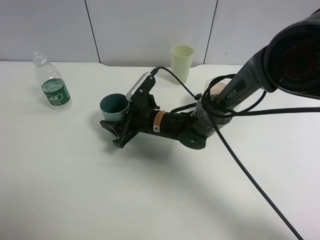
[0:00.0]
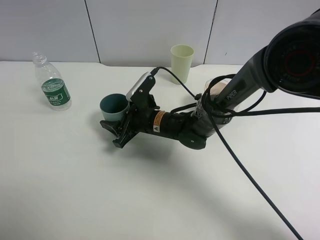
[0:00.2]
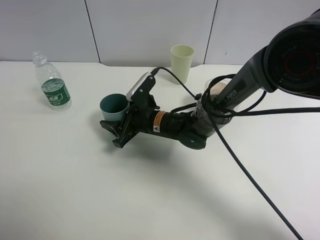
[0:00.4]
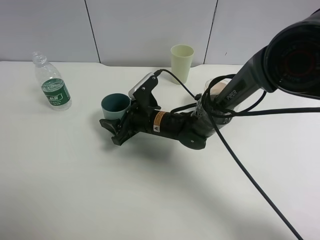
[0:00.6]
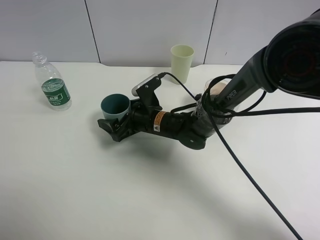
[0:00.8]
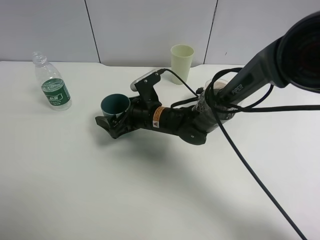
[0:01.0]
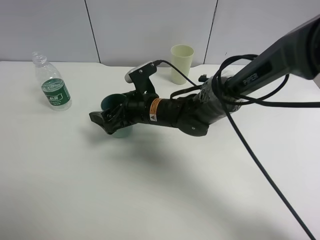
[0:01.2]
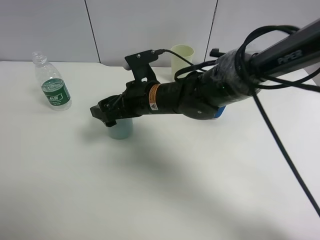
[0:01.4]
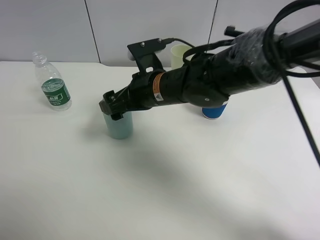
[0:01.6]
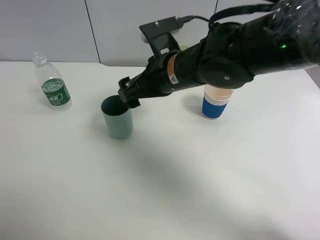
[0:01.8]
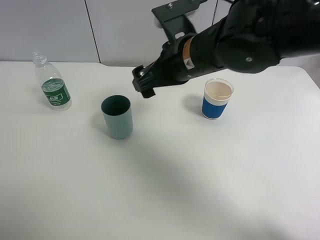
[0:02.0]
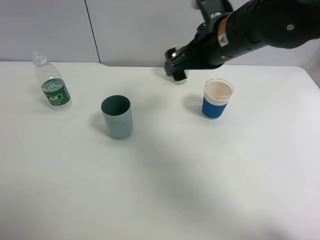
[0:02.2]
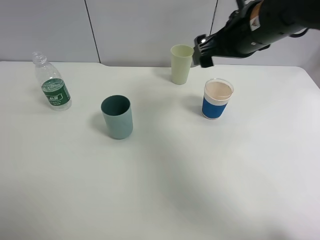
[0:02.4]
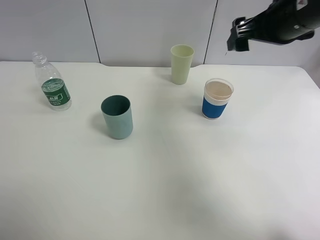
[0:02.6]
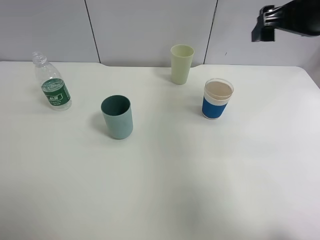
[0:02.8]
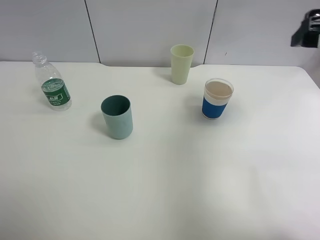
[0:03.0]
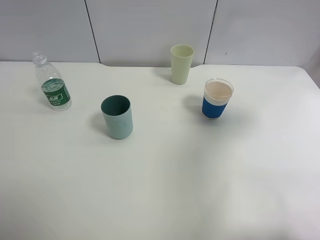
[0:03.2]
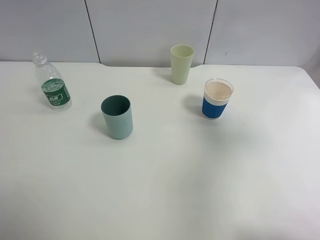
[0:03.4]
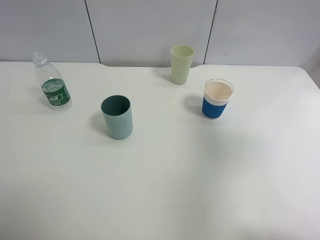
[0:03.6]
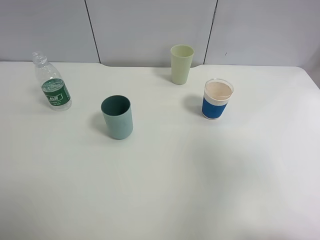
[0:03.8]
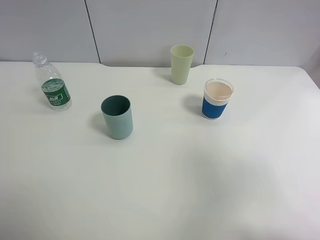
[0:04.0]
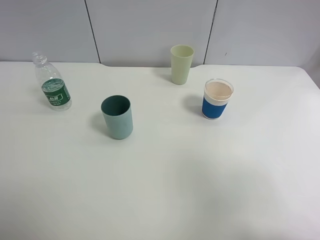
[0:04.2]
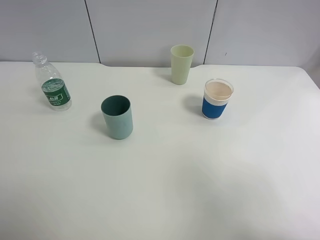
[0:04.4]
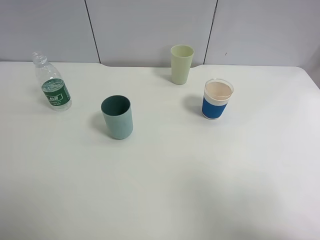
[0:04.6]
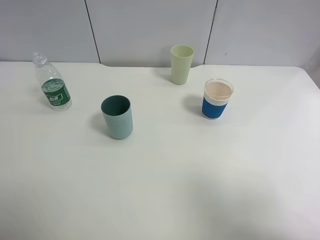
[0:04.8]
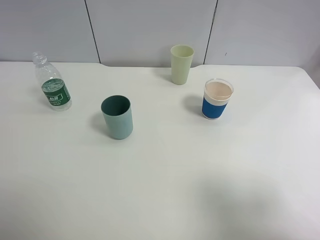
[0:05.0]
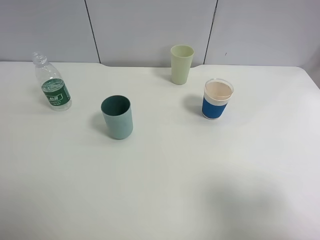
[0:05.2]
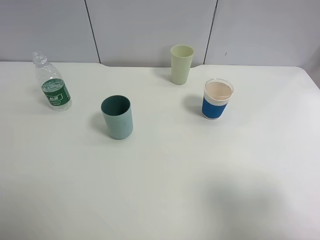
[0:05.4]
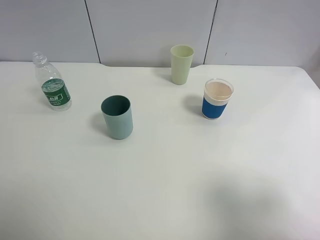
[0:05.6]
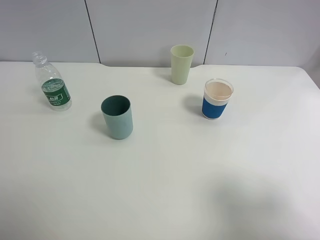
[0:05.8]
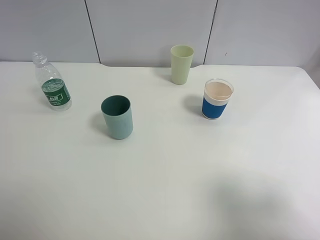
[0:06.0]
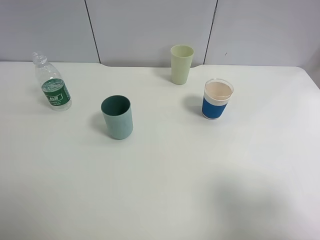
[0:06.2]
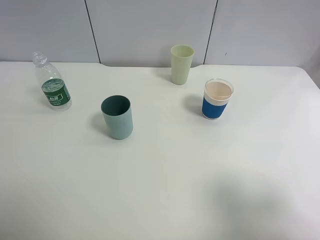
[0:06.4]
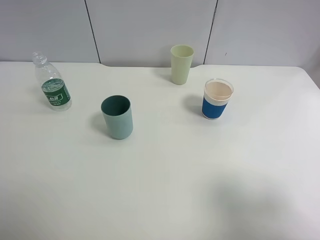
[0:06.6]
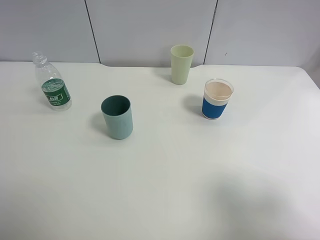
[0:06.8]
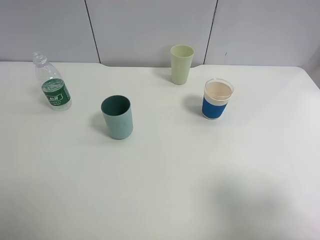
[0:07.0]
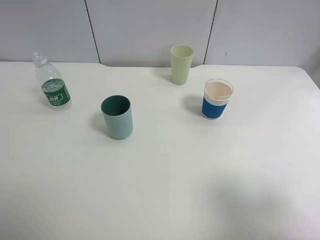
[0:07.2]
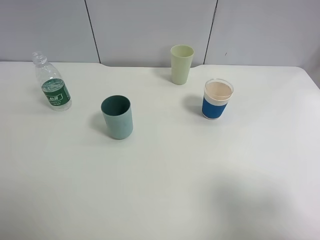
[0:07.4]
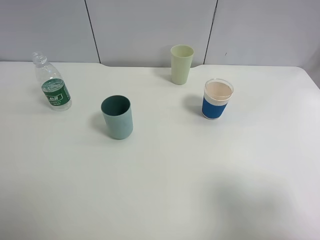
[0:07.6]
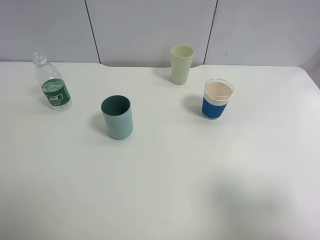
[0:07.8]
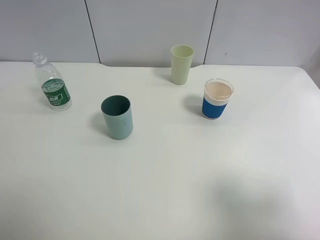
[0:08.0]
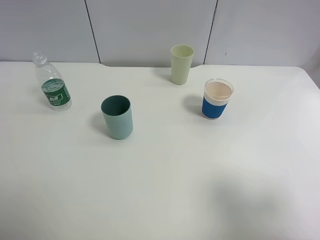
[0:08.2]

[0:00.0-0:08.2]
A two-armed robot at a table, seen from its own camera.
Task of the whole recording: use a clamp to hold the bottle of the drink, pour the beverage into a random cup, then clamp the cup containing the drink and pour the drink into another random cup.
0:00.0 to 0:01.6: The right gripper travels upward by approximately 10 cm, and opens.
0:01.6 to 0:03.2: The right gripper is displaced to the right and upward by roughly 35 cm.
0:03.2 to 0:05.0: The right gripper goes about 20 cm backward.
0:06.6 to 0:08.2: Both grippers stay about where they are.

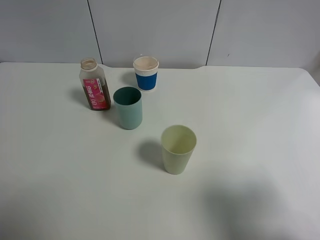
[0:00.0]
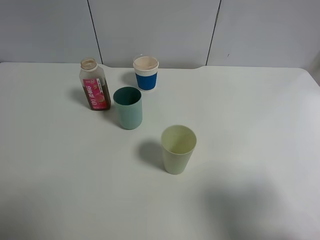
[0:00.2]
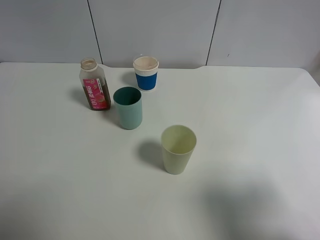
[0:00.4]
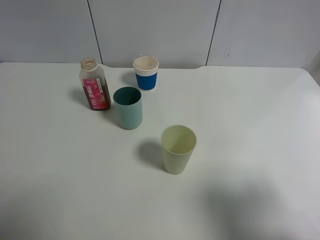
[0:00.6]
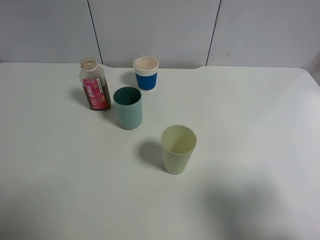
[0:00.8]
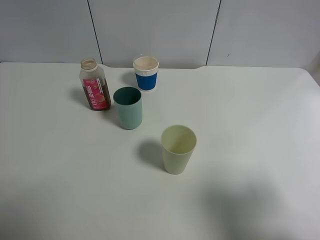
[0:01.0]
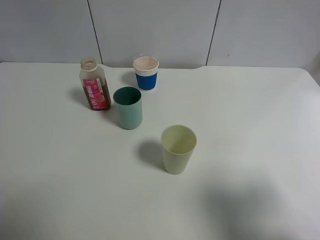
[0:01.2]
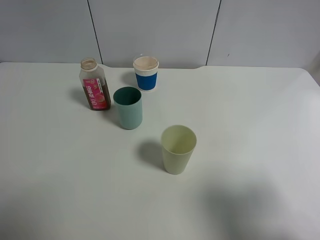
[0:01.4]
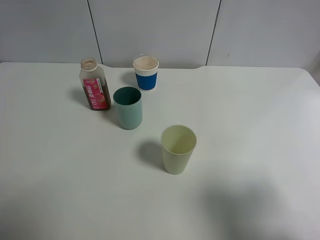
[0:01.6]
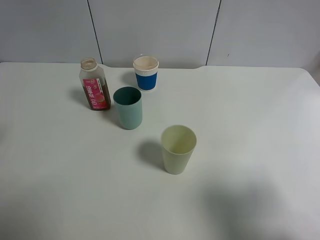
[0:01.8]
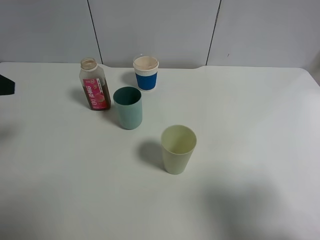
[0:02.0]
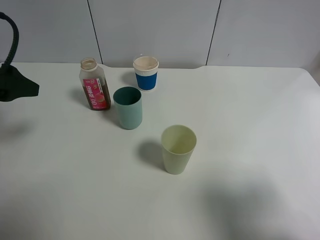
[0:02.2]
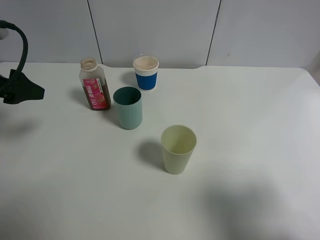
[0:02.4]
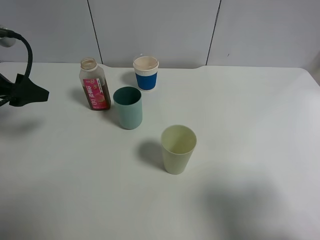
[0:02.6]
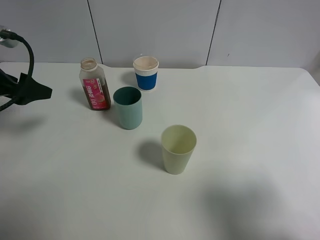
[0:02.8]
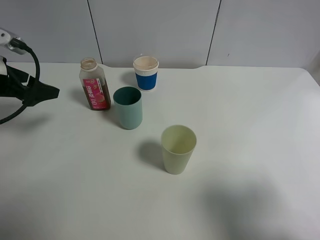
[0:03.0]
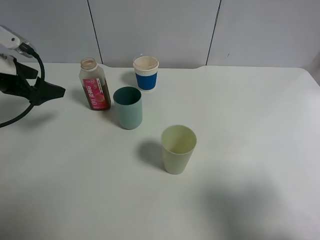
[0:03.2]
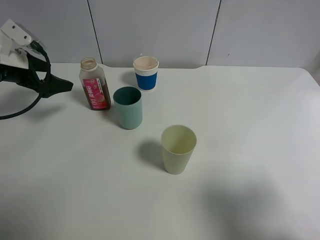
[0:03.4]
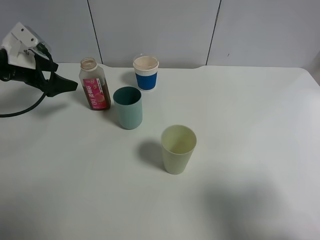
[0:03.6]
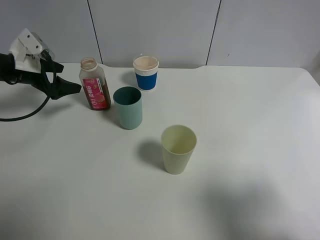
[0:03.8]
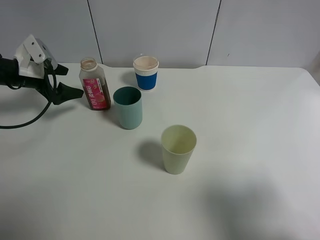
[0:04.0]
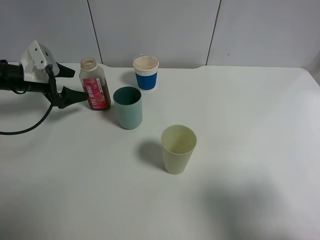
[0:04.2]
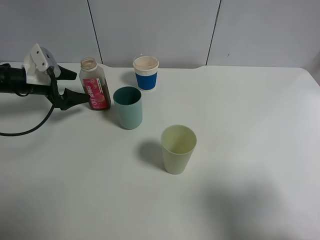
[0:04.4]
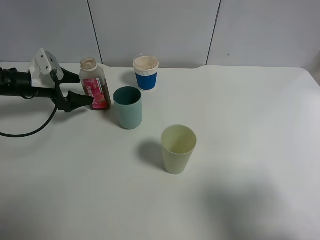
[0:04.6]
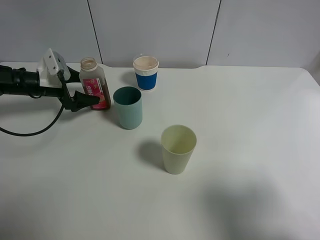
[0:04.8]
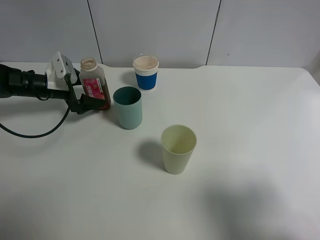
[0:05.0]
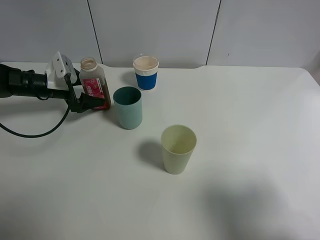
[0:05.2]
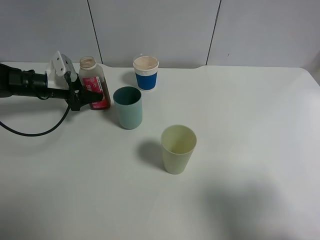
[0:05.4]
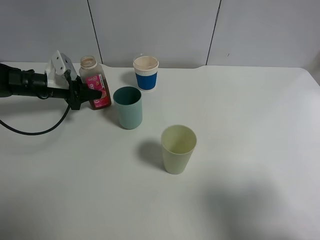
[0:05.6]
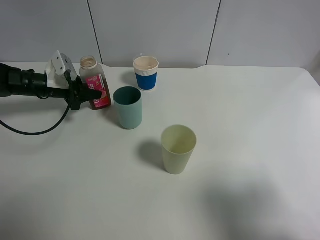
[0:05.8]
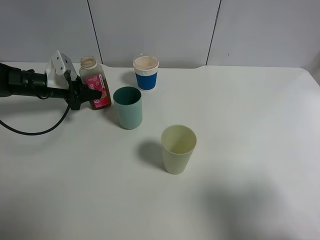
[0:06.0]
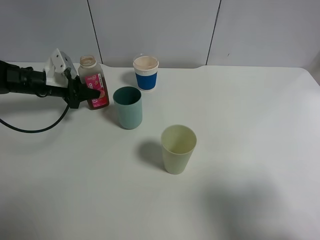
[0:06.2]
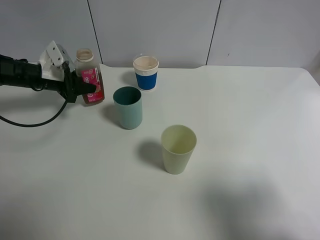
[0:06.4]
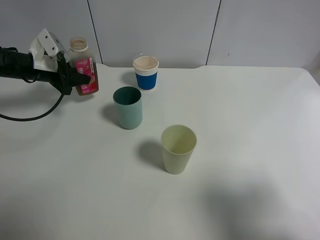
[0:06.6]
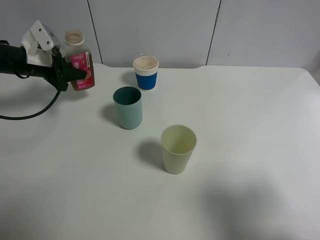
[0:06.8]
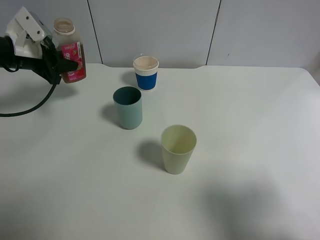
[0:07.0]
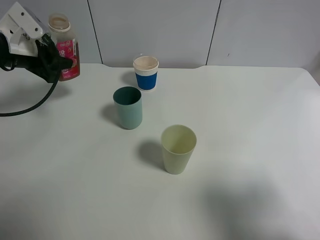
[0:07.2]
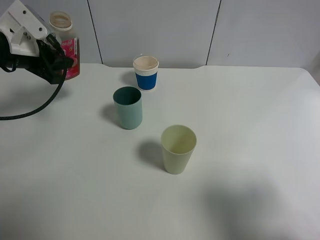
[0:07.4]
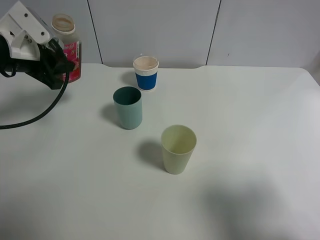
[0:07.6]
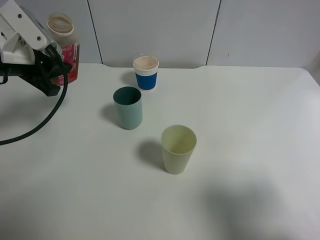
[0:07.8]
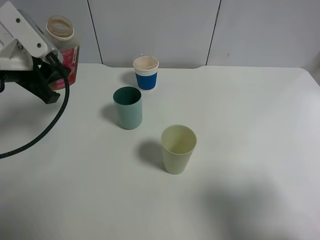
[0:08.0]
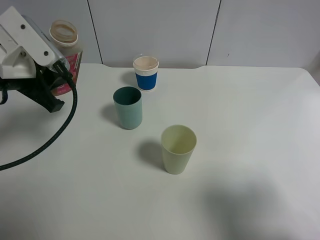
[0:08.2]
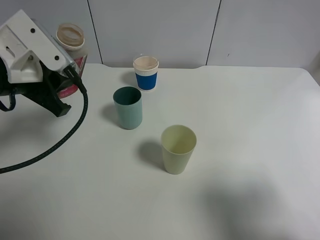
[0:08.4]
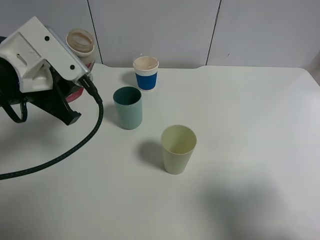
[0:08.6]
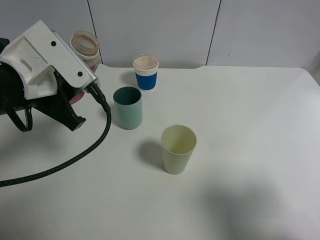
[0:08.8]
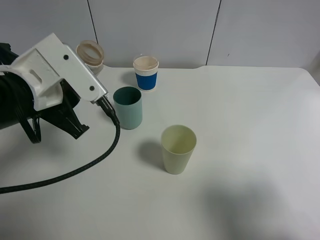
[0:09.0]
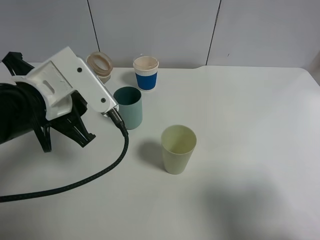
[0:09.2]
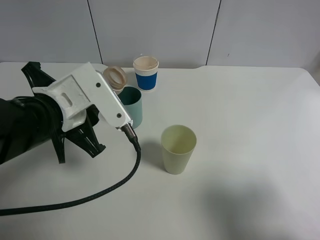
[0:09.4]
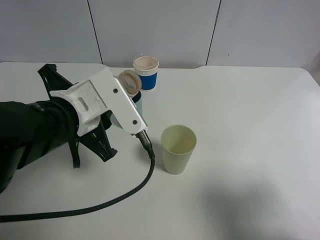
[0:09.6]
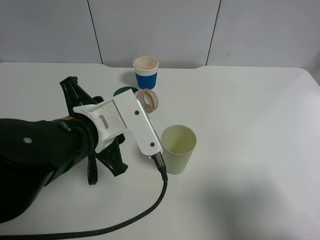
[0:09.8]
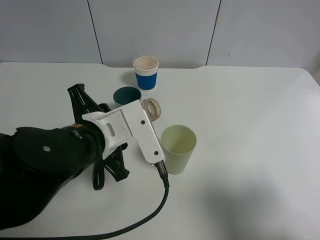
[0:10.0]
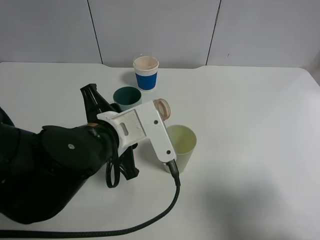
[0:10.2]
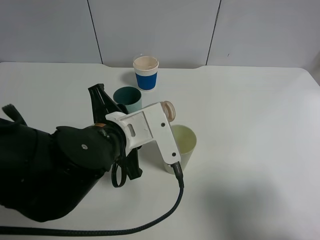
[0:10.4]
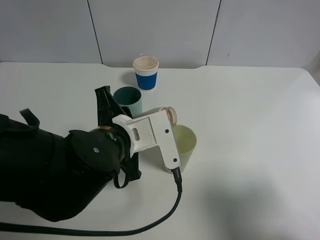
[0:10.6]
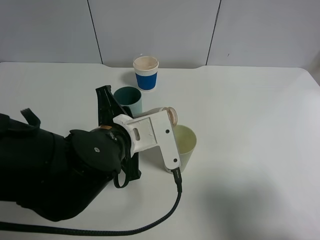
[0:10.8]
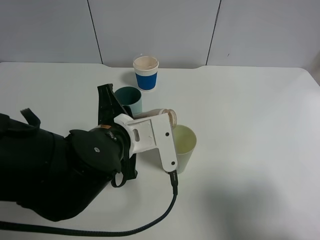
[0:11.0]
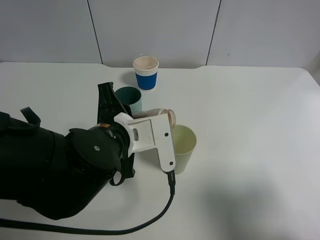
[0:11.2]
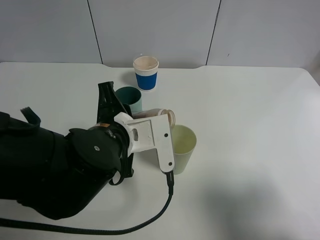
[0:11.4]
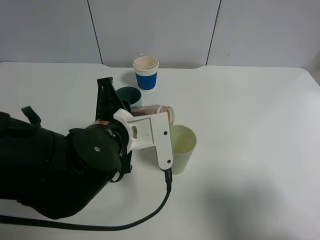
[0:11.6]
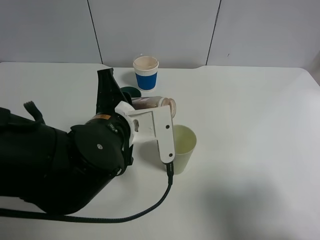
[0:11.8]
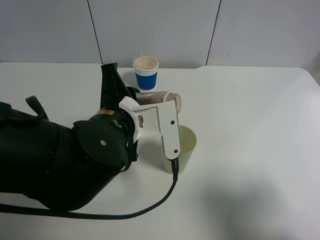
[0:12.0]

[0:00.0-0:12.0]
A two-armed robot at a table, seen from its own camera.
Task of the whole recording: use a clamp to hold the bottle of the drink, pour the beverage into a random cup, then clamp the cup containing the drink and pour the drink into another random cup.
Step, 0:00.0 to 0:06.6: Pick up the drink bottle with left gripper.
0:01.6 to 0:03.0: The left gripper goes roughly 20 cm forward and downward.
0:03.0 to 0:04.4: The left gripper goes some 15 cm downward and forward.
0:04.4 to 0:06.0: The left gripper closes its fingers.
0:06.0 to 0:07.6: The left gripper moves upward and backward, some 15 cm.
0:07.6 to 0:09.0: The left gripper shifts some 15 cm backward and to the right.
0:09.0 to 0:10.4: The left gripper shifts approximately 10 cm to the right and downward.
0:10.4 to 0:12.0: The grippers stay close to where they were, moving slightly.

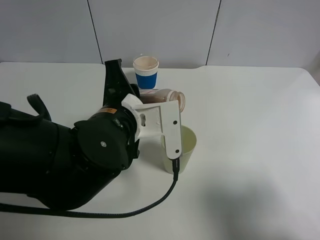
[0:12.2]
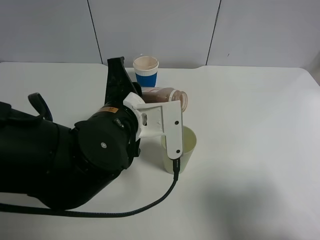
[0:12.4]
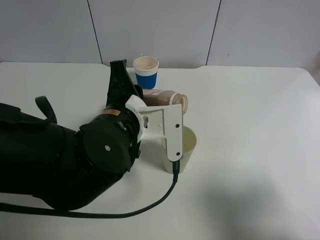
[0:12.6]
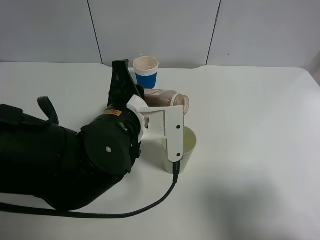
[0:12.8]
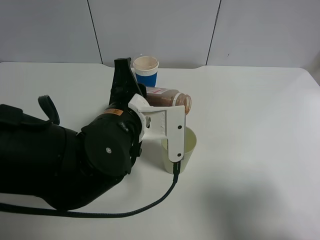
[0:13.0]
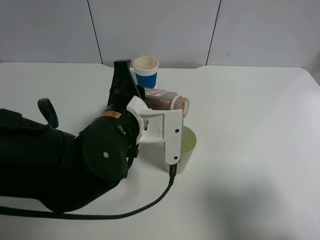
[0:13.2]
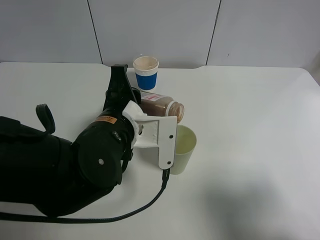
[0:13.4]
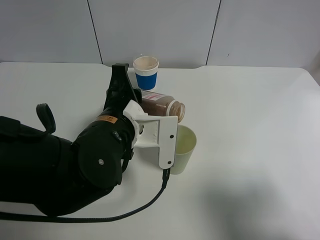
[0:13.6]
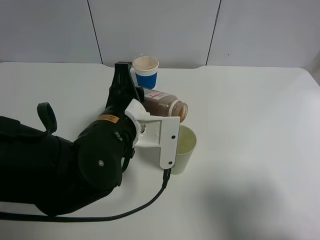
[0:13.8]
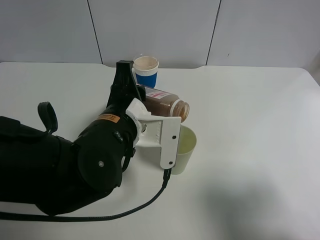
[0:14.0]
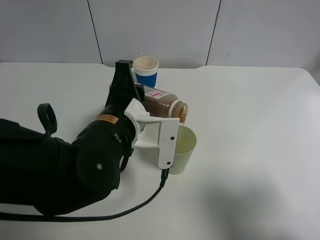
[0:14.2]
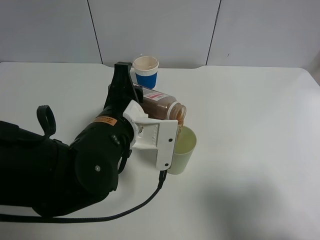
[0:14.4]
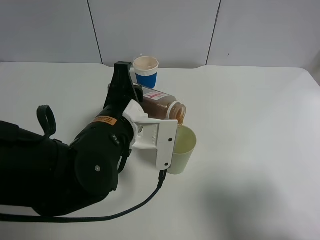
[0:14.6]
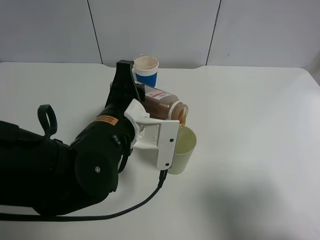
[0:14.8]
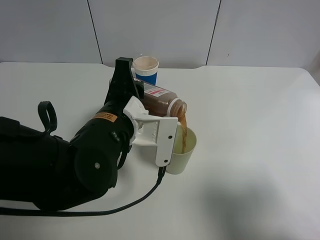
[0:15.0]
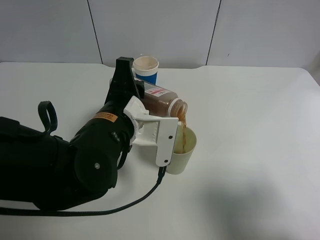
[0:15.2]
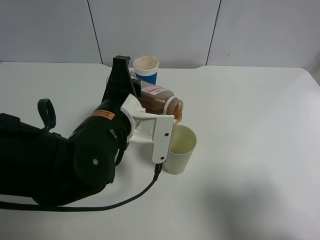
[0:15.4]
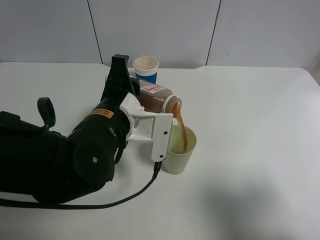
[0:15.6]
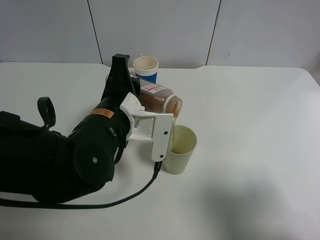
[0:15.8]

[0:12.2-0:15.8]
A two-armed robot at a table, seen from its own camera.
Task of the whole recording: use a clamp to hold the bottle of the drink, pour the beverage into a random cup, then clamp the cup containing the drink and pour the drink into another random cup.
0:12.2 to 0:15.8: The grippers move only a little.
